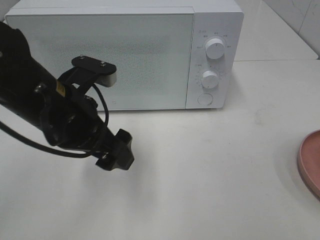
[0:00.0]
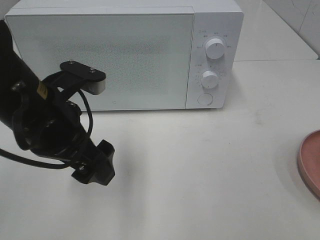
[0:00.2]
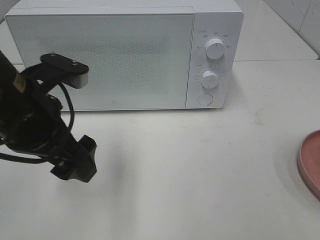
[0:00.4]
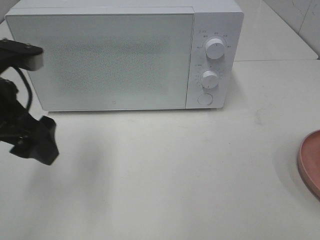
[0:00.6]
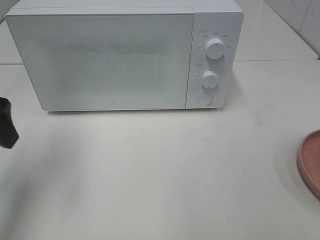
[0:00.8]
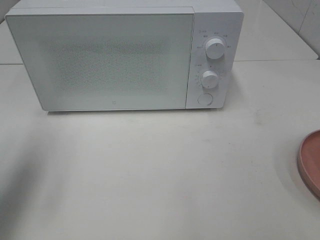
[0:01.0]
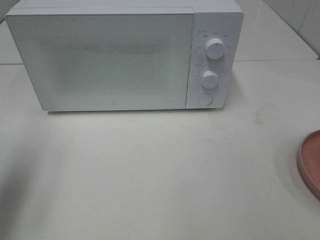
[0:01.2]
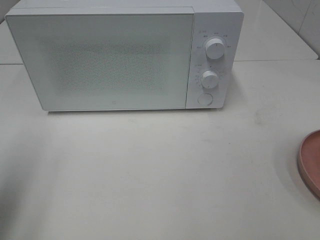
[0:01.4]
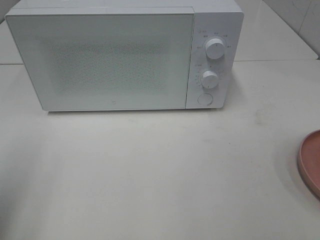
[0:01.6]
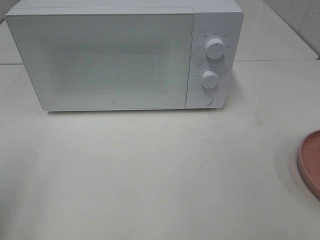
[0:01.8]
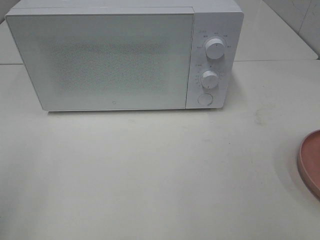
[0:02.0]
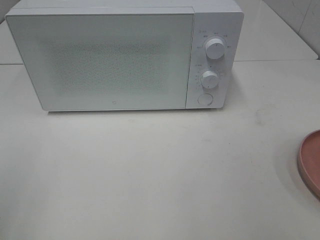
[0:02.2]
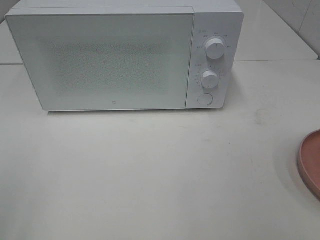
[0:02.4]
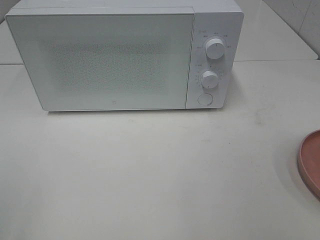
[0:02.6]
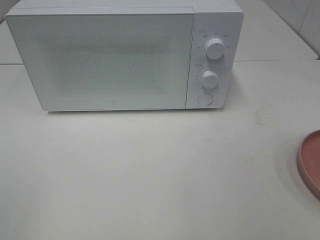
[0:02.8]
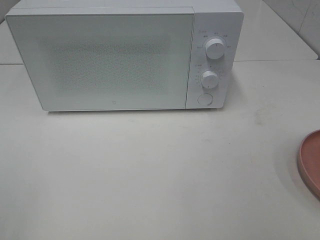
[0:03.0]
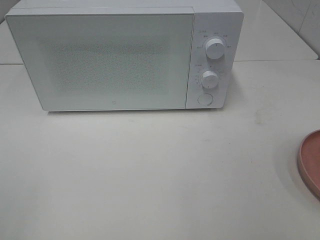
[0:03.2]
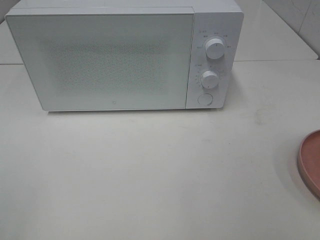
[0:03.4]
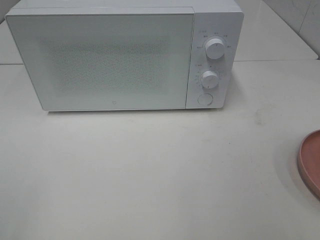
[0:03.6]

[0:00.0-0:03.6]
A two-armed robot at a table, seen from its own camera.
Task of the whole recording: Heat the burger.
0:00.0 to 0:01.8: The left gripper travels to the left and backward by some 25 cm.

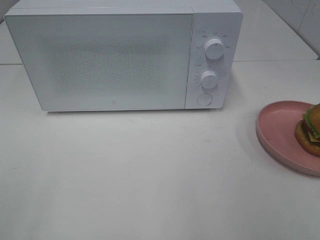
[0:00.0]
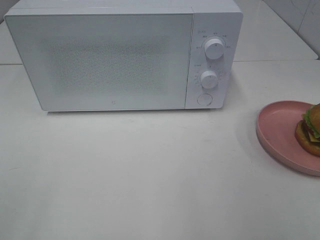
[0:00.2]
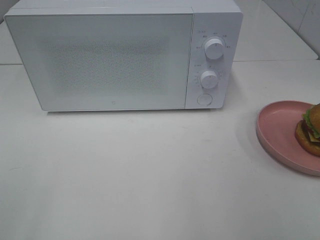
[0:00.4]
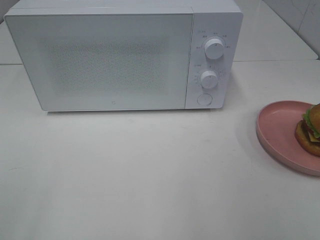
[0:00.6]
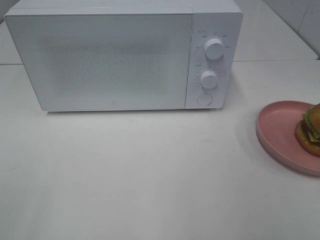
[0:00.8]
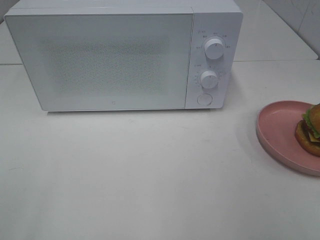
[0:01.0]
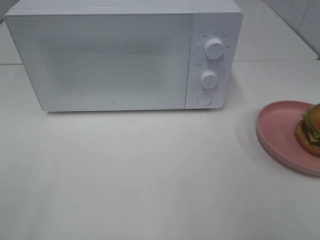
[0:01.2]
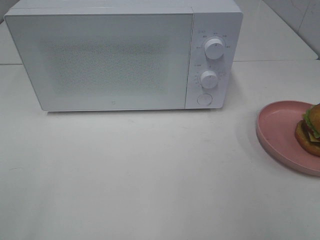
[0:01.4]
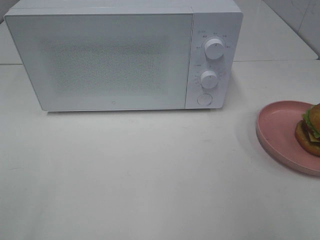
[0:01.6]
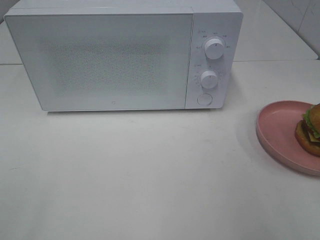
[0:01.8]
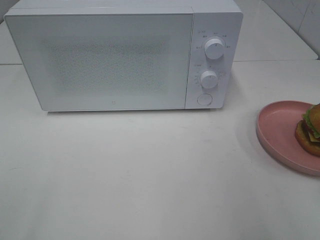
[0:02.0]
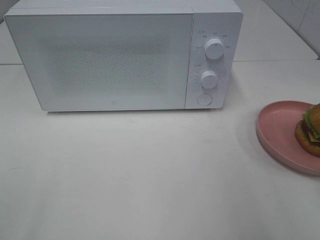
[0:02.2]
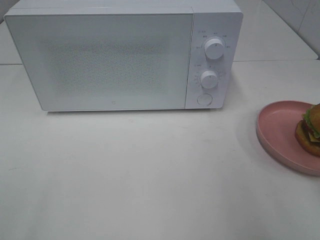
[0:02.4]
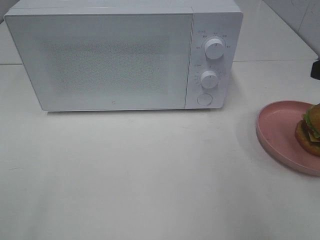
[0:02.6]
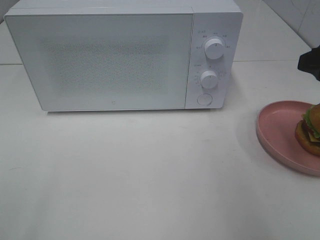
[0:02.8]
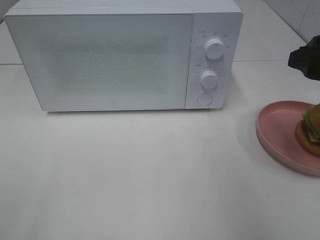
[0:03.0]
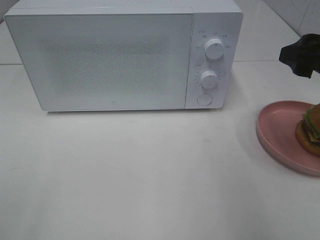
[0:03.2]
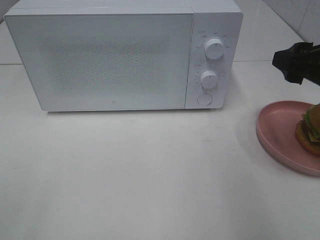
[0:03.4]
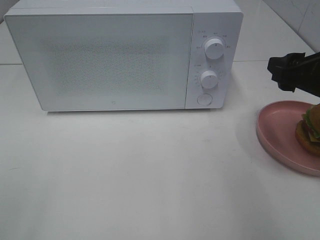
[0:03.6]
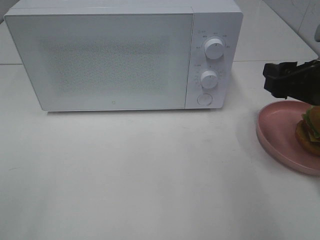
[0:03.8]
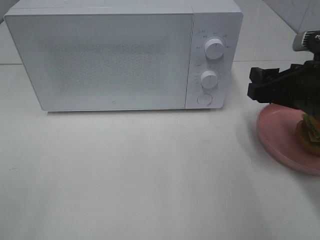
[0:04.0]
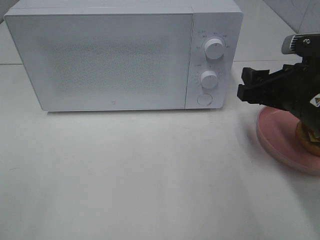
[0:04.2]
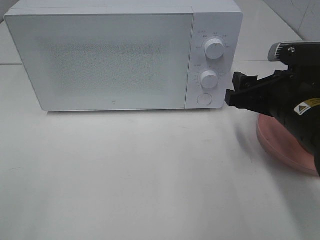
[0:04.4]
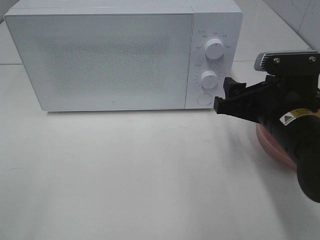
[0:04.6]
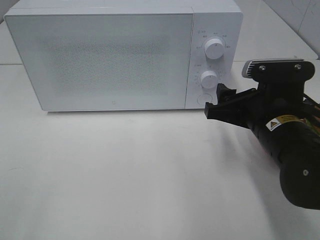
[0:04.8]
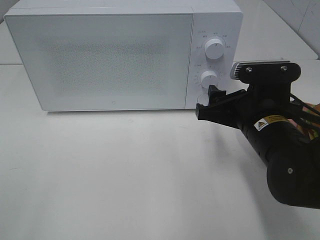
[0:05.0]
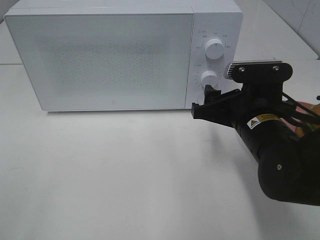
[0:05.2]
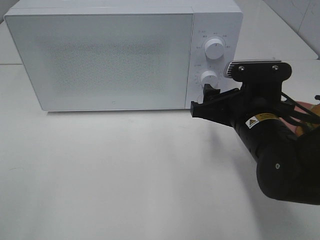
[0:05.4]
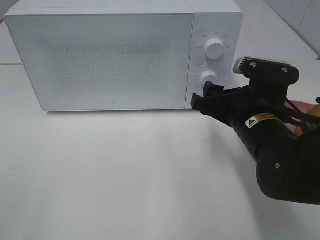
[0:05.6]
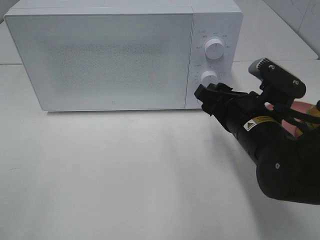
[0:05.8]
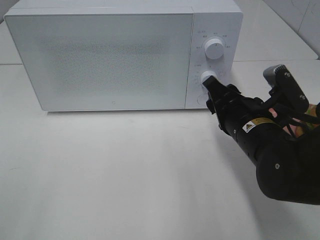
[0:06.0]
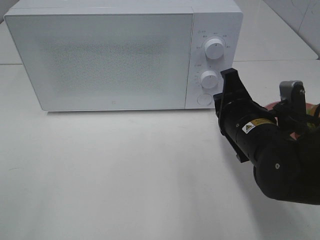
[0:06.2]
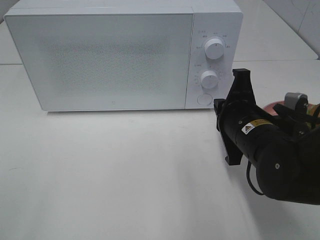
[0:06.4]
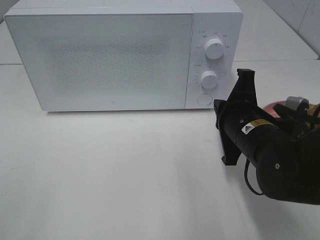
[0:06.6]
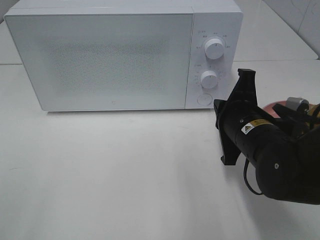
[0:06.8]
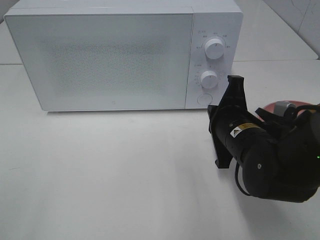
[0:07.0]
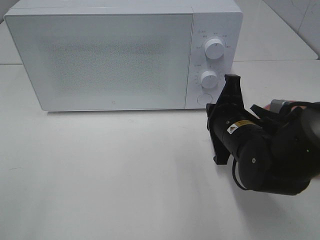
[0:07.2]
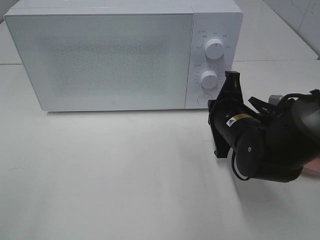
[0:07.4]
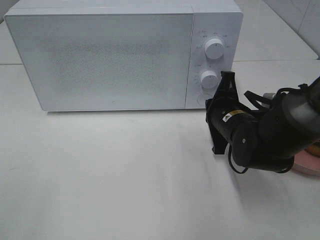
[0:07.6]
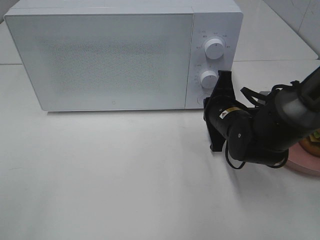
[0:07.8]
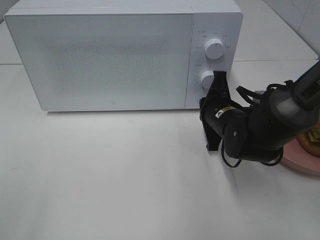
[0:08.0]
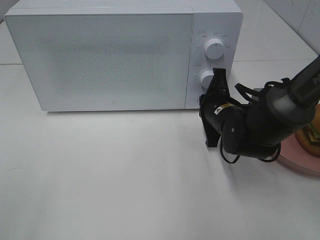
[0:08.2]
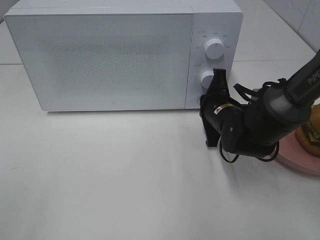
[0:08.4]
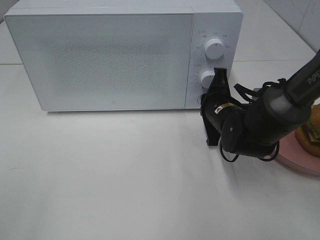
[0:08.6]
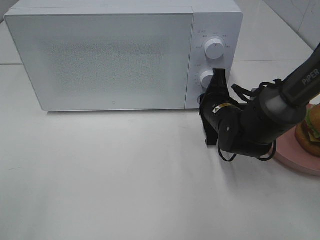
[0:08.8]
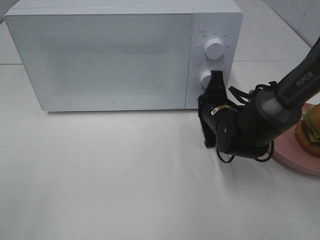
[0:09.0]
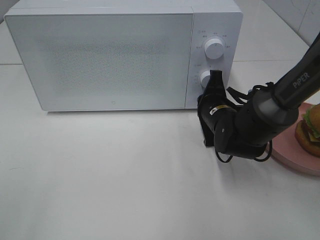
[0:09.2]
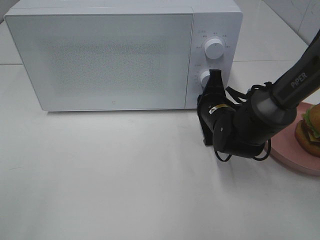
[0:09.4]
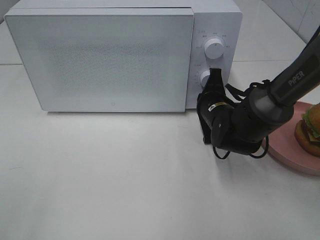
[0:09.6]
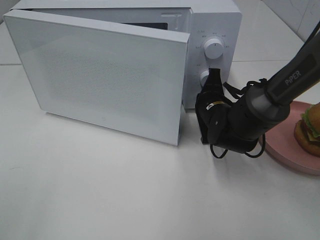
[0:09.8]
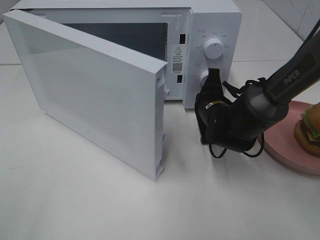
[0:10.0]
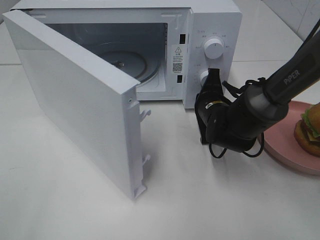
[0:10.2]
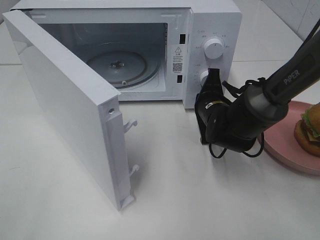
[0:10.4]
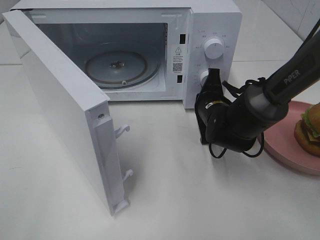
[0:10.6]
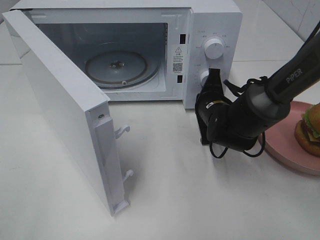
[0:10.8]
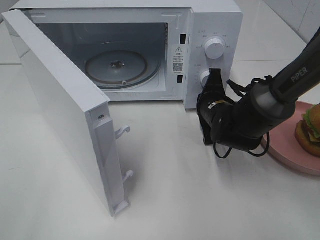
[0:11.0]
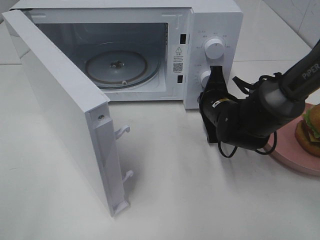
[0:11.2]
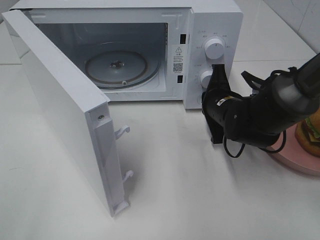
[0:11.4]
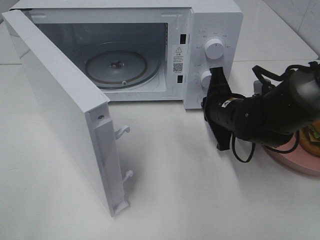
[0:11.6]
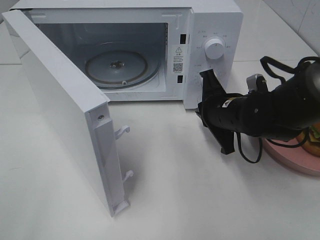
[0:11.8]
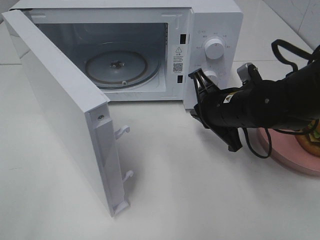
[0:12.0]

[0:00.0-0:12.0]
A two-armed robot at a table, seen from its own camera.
Task of the whole recording: Heat the burger.
Step, 0:00.0 to 0:11.6: Right hand: press the switch.
0:01.6 to 0:03.0: The right gripper heads forward, covering approximately 15 cm.
0:03.0 to 0:04.4: The right gripper travels downward and to the left by approximately 10 cm.
0:04.4 to 0:06.0: The right gripper travels to the left by some 5 cm.
0:06.0 to 0:07.6: The right gripper is displaced forward by roughly 5 cm, and closes up.
0:07.6 to 0:09.0: The grippers make only small movements.
0:10.4 to 0:12.0: The right gripper moves upward and backward, about 10 cm.

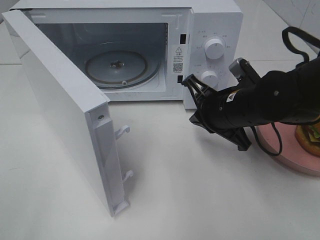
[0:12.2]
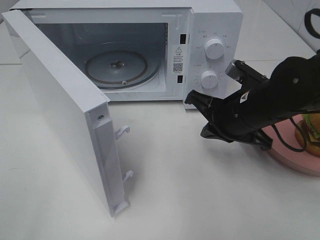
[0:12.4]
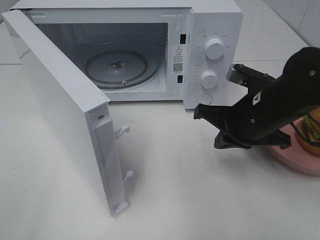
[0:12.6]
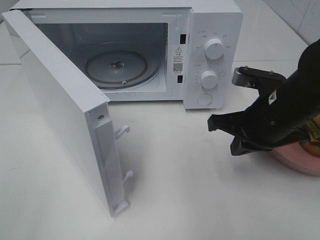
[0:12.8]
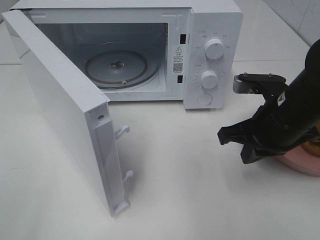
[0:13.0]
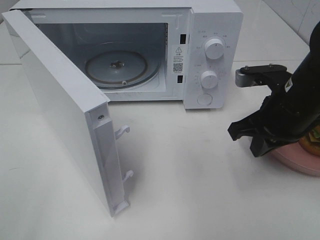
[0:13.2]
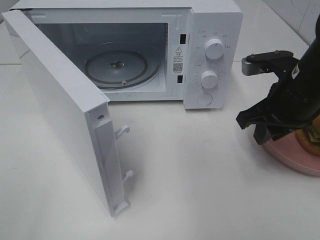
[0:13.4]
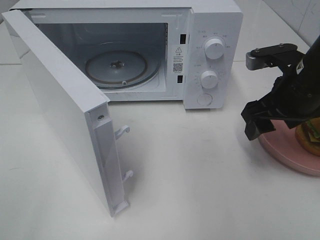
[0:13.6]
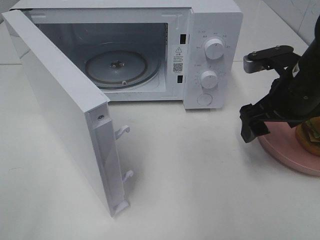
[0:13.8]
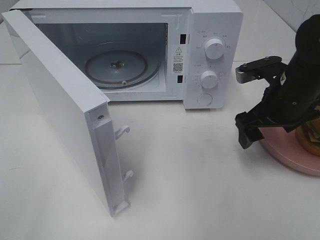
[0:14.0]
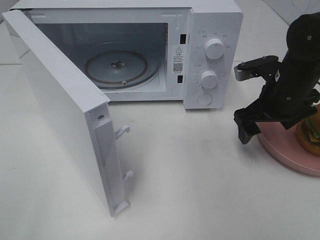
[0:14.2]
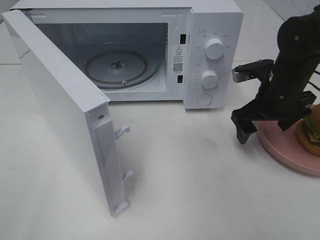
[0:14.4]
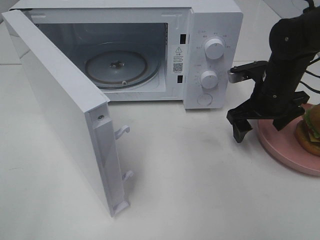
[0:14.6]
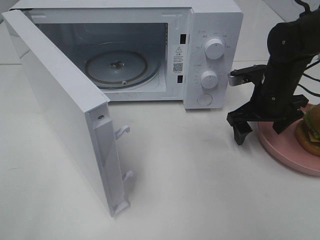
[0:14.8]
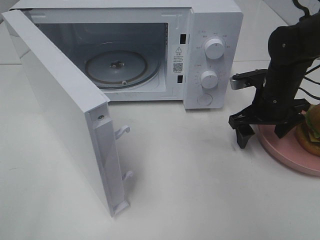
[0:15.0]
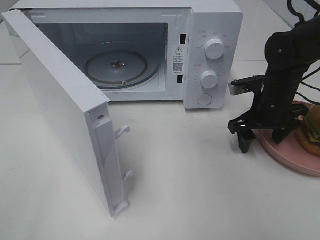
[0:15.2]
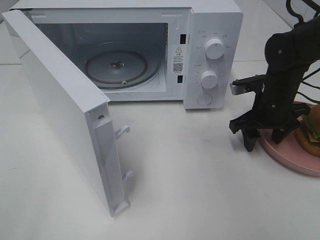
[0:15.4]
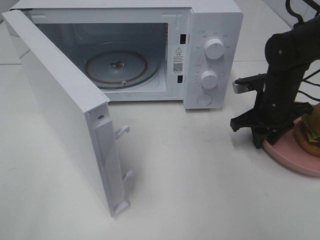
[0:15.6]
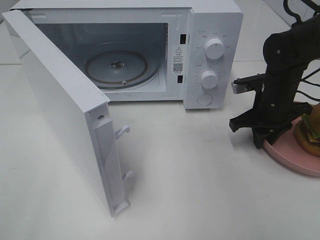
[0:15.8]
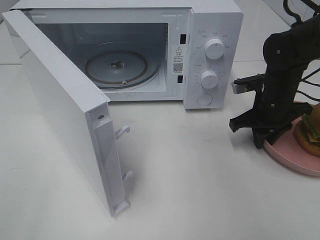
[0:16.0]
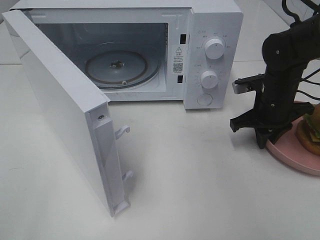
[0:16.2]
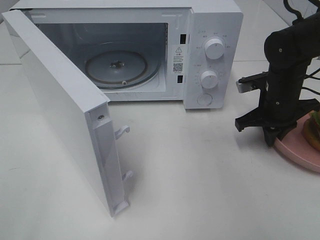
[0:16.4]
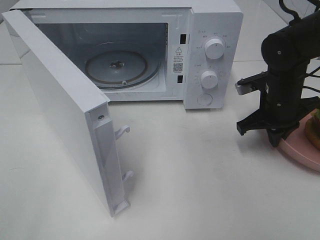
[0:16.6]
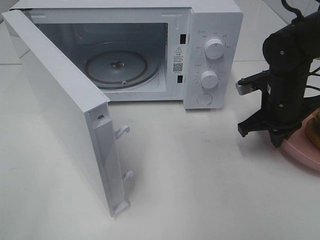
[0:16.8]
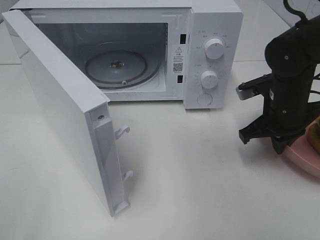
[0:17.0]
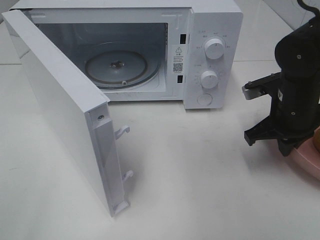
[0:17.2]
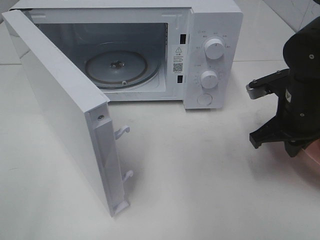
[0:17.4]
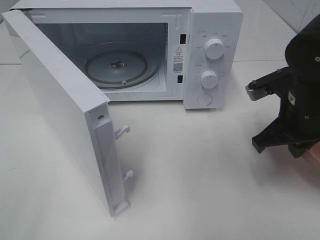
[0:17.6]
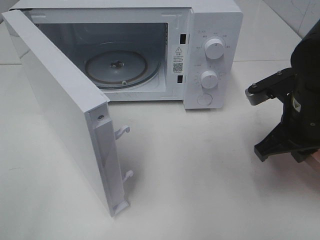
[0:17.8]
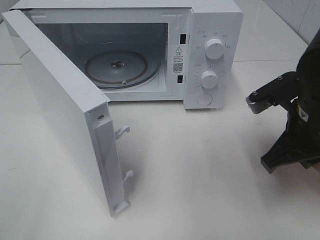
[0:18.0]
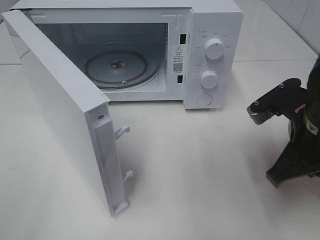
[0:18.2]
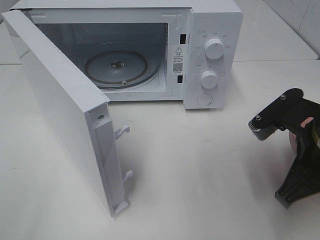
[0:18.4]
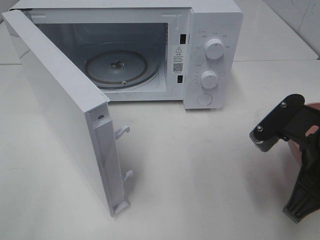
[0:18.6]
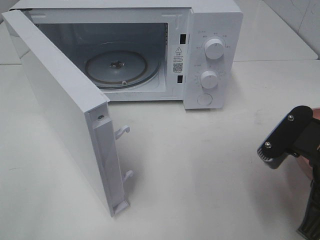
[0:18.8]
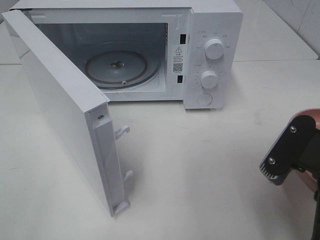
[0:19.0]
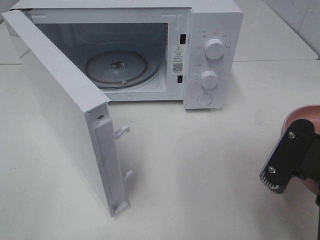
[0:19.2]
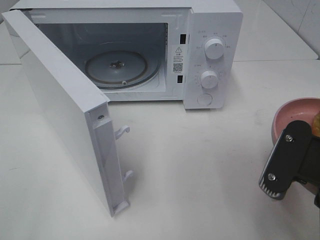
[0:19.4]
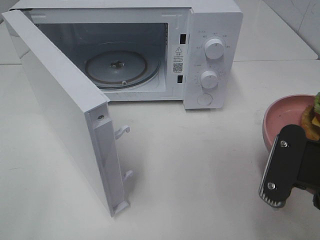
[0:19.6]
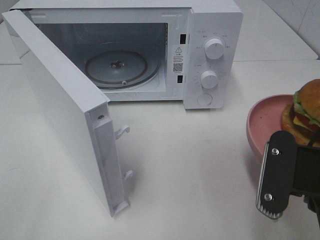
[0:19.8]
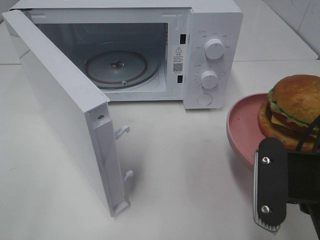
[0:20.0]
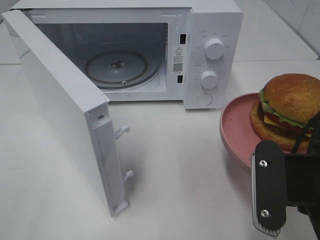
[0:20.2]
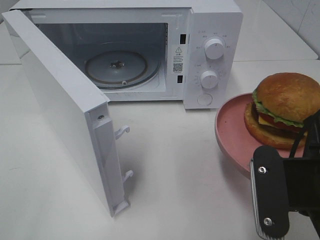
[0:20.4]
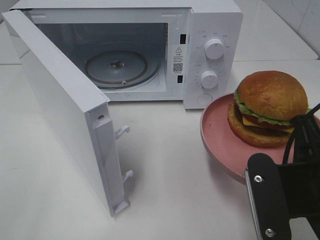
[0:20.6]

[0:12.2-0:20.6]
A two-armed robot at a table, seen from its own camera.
Task of the whole recording: Heat the burger.
Step, 0:12.2 to 0:16.4: Right hand: grab the plate with the hamburger.
0:12.2 to 0:13.6: The right gripper moves to the right and upward, roughly 10 cm, and opens up.
0:13.6 to 0:15.0: The right gripper shifts some 10 cm downward and forward.
0:15.0 to 0:16.4: The right gripper closes its fingers.
0:16.4 to 0:17.8: The right gripper heads backward and upward, covering some 15 cm.
0:17.8 to 0:19.2: The right gripper travels backward by roughly 15 cm.
